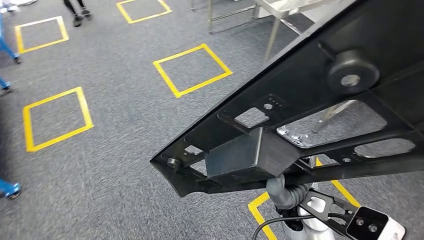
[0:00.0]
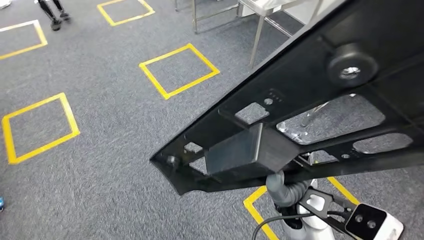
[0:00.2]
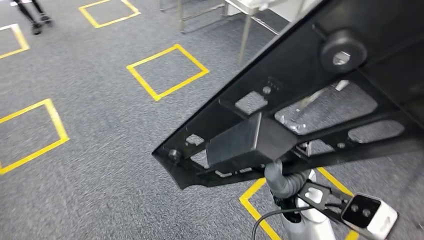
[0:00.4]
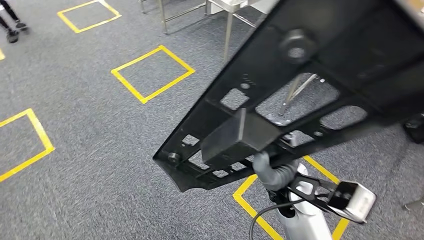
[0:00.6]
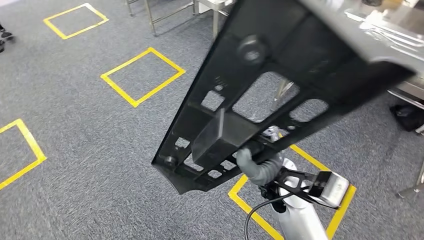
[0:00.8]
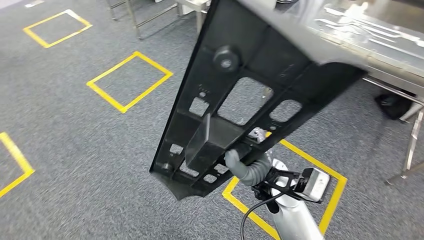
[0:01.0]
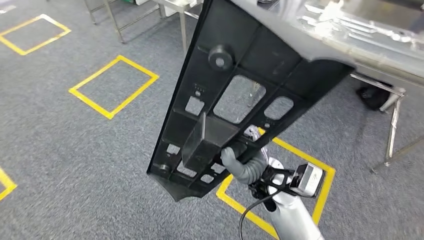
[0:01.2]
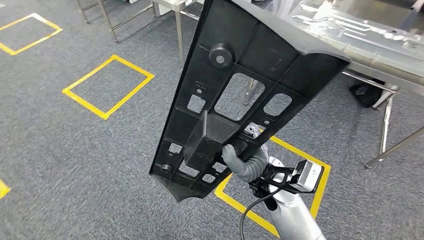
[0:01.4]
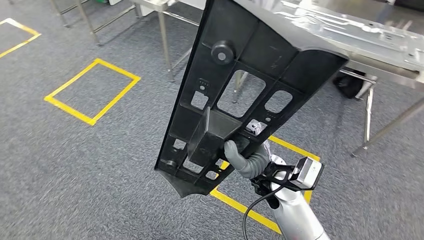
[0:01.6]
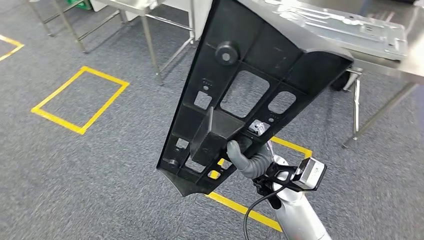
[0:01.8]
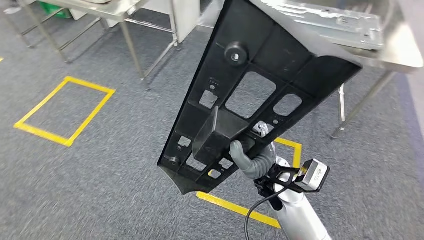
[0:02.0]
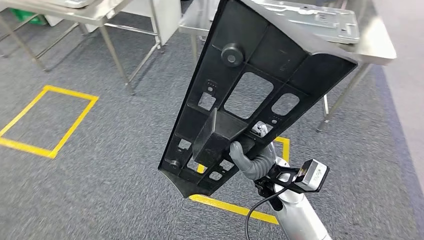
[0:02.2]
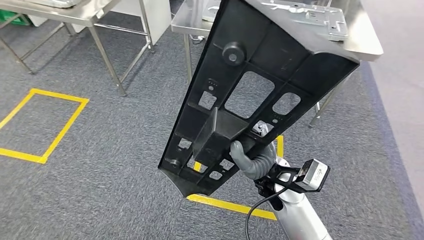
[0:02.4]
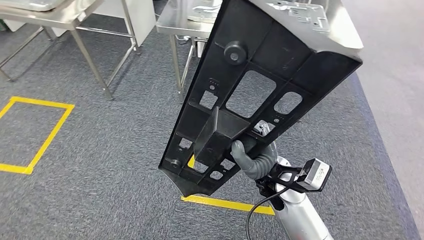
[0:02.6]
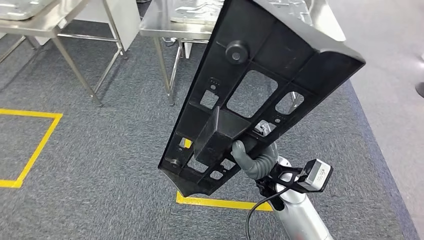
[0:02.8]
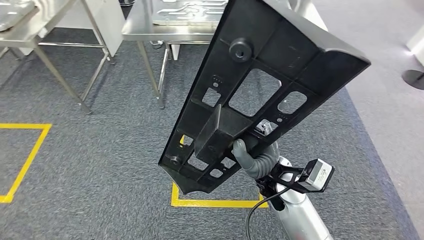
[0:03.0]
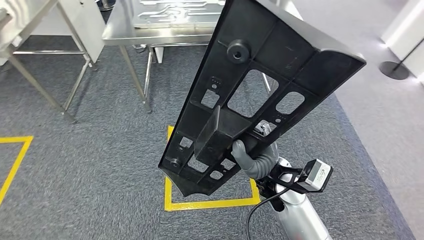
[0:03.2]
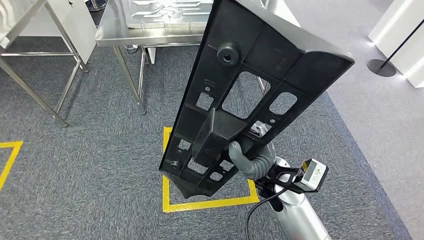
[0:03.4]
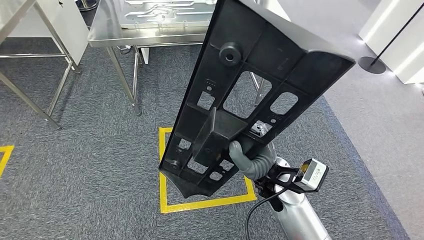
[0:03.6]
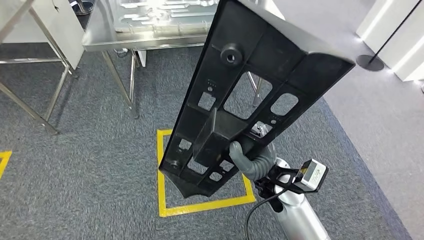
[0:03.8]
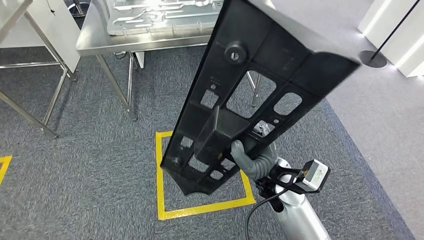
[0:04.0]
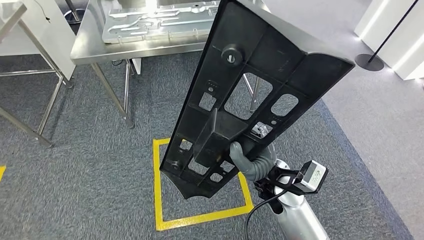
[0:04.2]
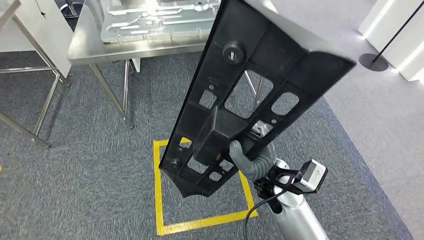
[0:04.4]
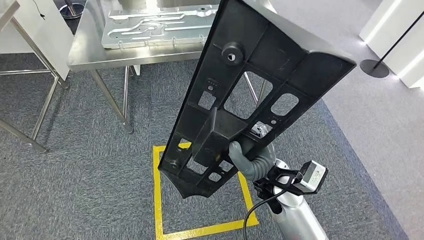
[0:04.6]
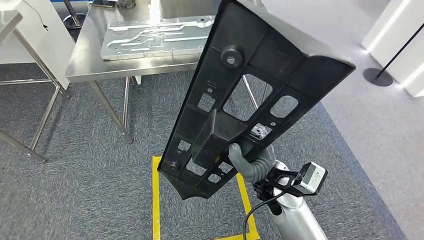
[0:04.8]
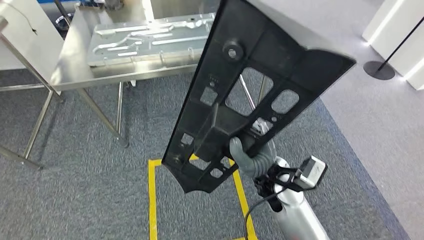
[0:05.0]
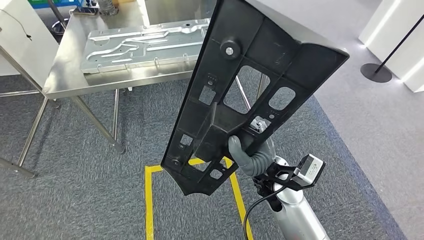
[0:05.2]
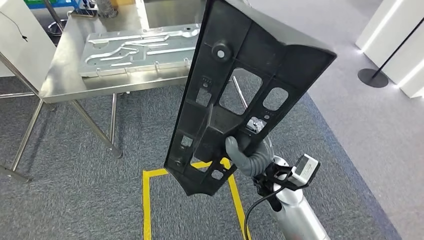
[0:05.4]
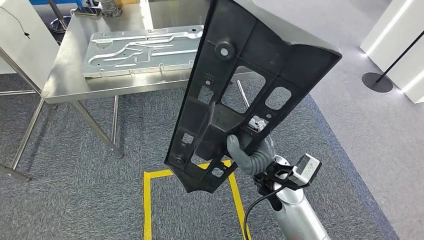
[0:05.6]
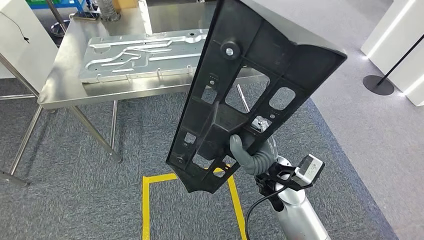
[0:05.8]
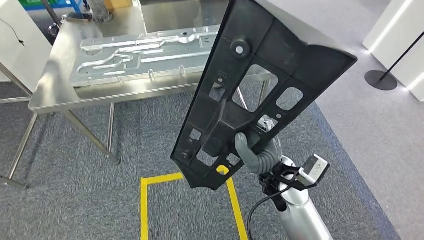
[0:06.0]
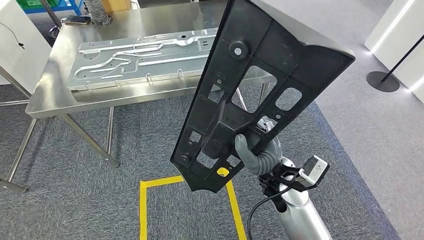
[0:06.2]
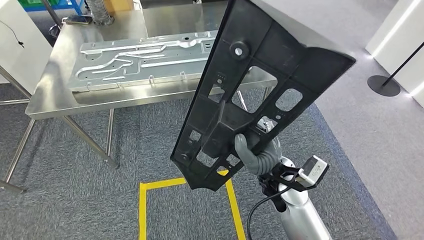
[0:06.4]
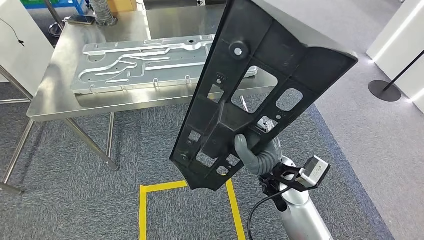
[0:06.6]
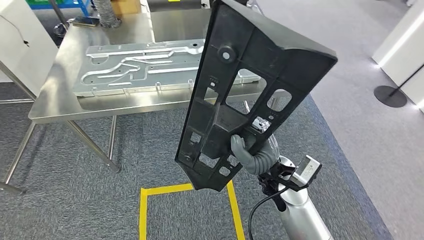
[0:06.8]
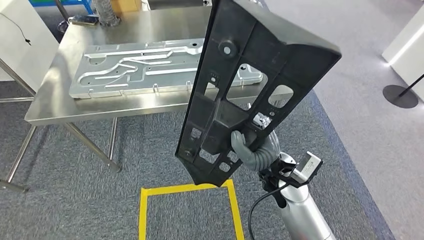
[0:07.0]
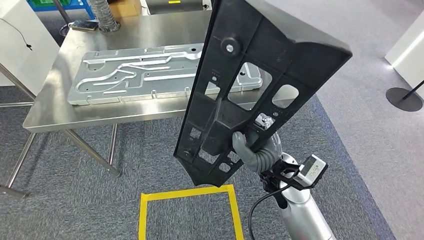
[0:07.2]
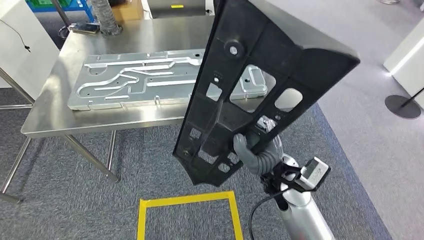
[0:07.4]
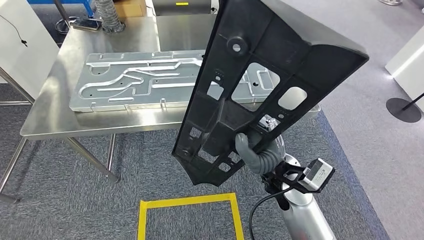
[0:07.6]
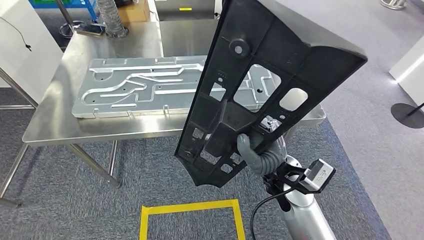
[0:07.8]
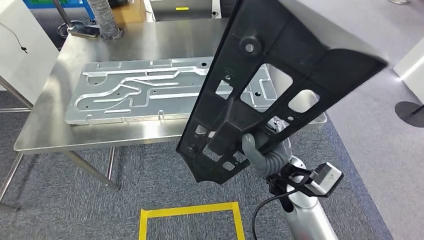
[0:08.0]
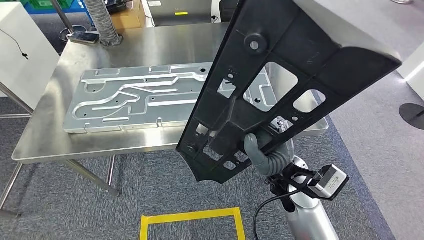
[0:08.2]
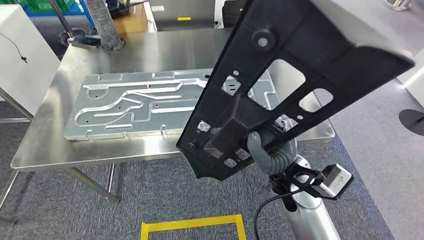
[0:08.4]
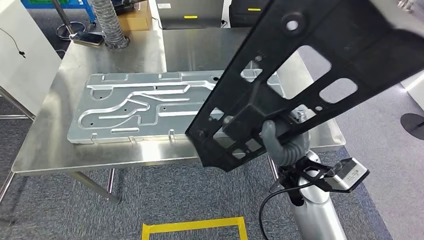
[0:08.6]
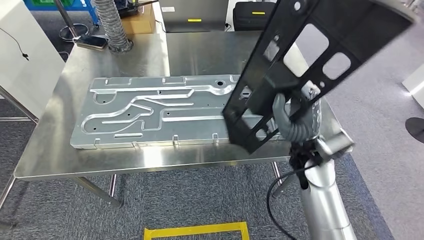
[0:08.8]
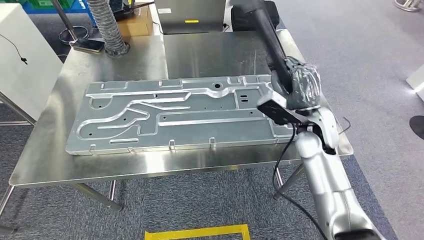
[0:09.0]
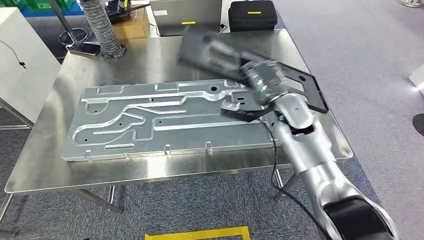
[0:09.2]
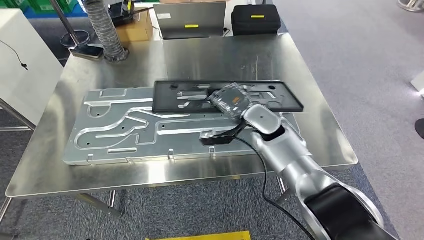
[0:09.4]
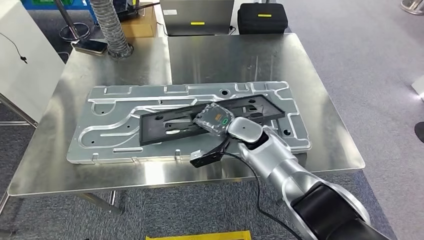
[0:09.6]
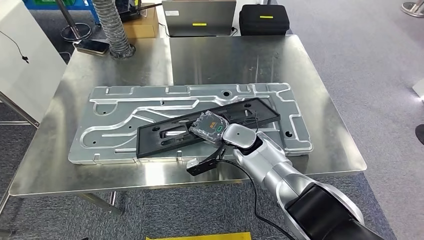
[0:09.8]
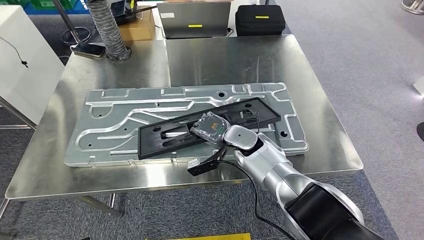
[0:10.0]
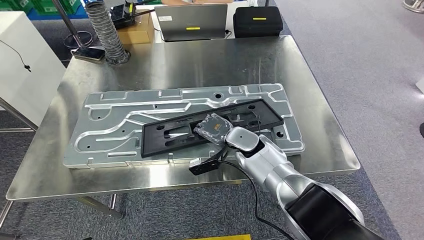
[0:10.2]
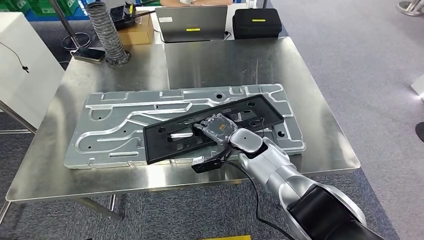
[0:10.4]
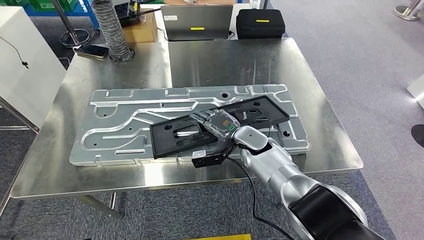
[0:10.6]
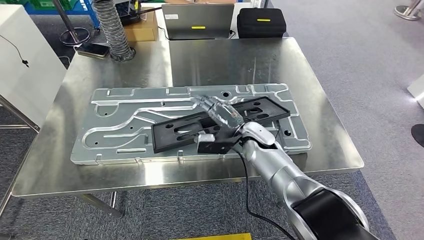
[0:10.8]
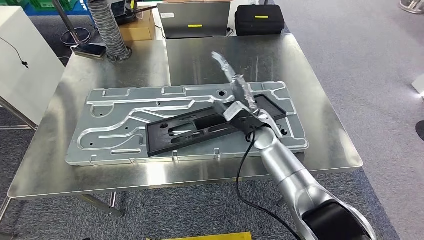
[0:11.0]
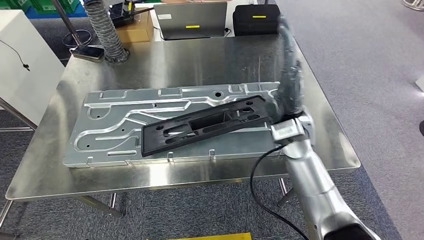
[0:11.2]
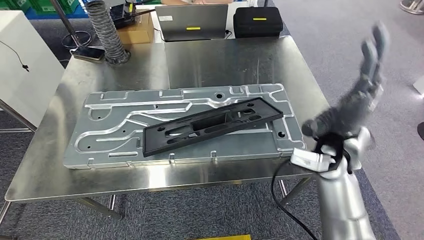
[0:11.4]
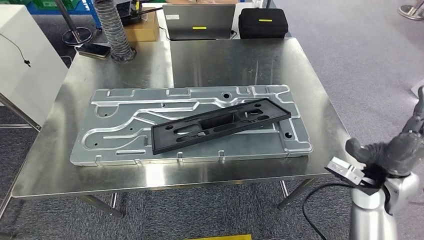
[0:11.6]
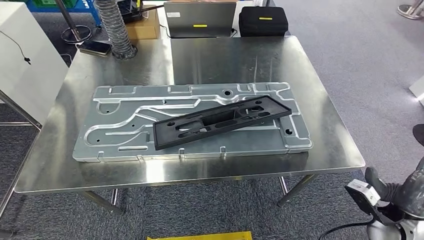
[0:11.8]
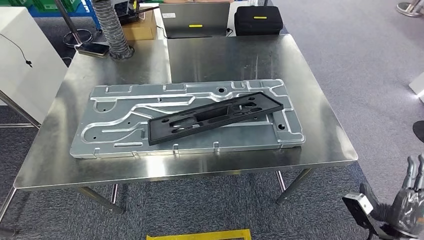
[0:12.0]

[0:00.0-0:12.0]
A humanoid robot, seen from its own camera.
Step, 0:00.0 to 0:09.2: Move the large material to the workbench.
Step, 0:09.4 to 0:11.0: Insert the large material into the corresponding slot on the workbench.

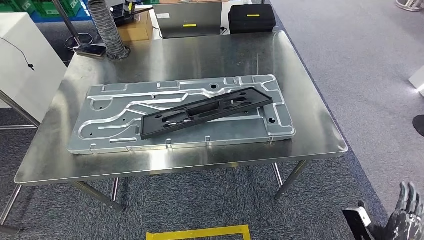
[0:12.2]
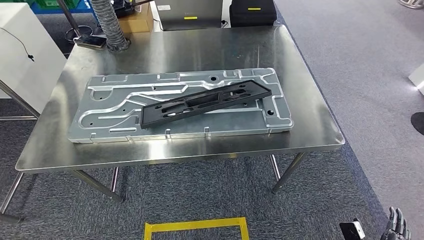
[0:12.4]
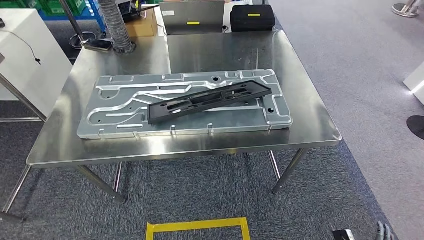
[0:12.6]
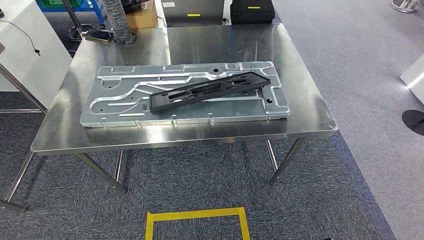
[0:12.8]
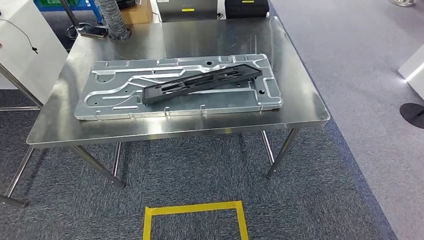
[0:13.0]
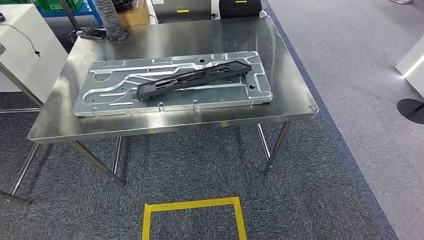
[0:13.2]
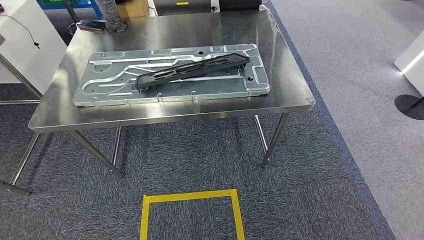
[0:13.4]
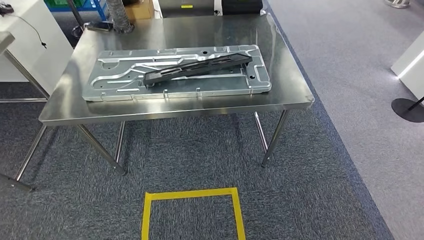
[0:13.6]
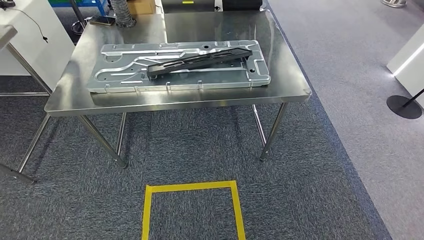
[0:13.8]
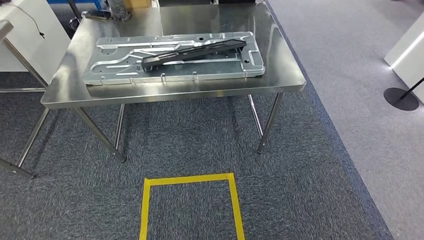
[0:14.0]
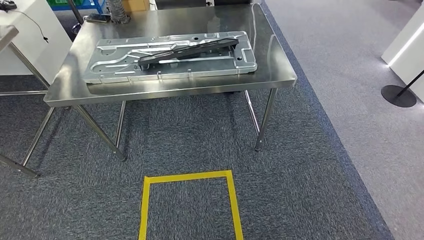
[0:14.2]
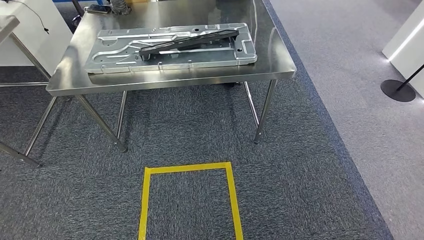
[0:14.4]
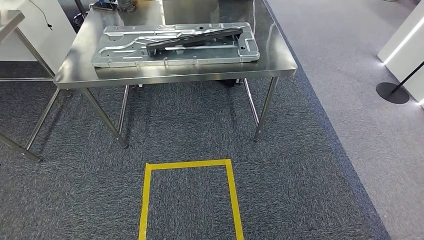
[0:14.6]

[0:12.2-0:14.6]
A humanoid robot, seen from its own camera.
Step, 0:12.2 to 0:14.6: Move to the initial position of the shelf.
